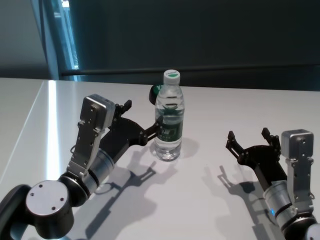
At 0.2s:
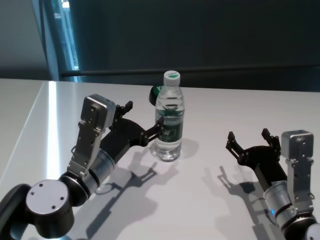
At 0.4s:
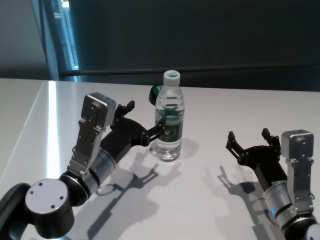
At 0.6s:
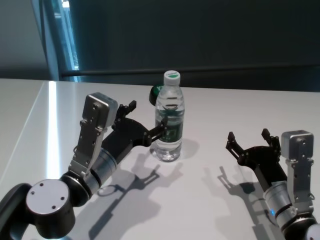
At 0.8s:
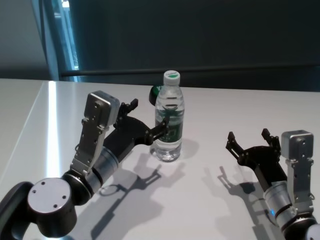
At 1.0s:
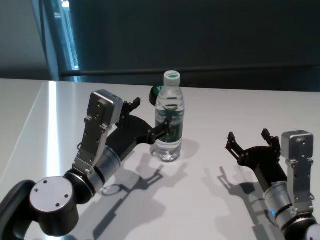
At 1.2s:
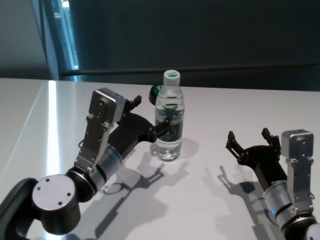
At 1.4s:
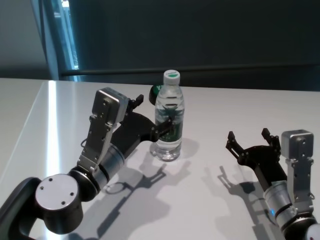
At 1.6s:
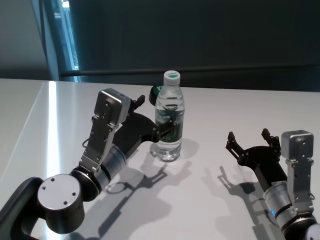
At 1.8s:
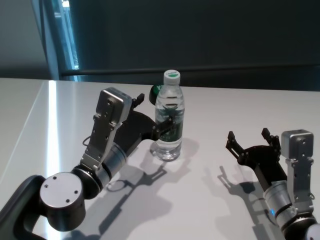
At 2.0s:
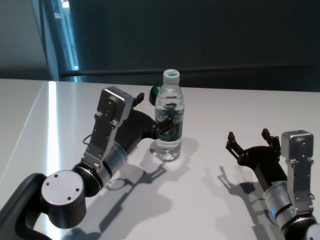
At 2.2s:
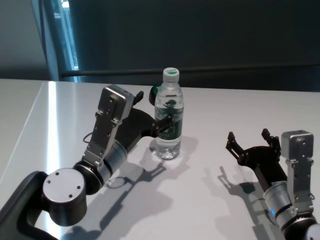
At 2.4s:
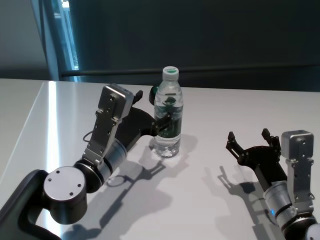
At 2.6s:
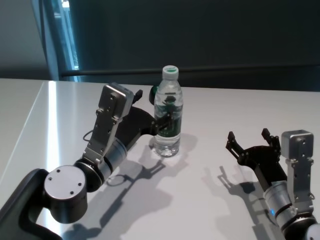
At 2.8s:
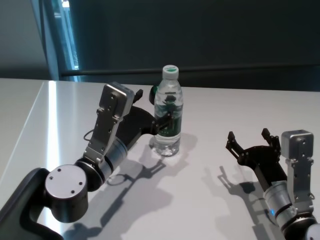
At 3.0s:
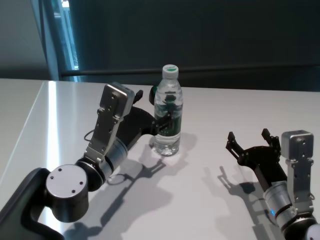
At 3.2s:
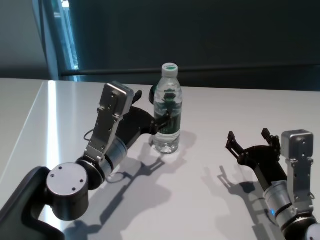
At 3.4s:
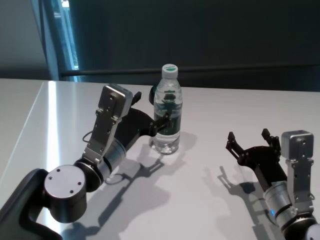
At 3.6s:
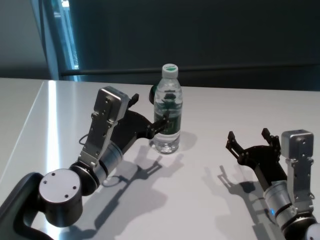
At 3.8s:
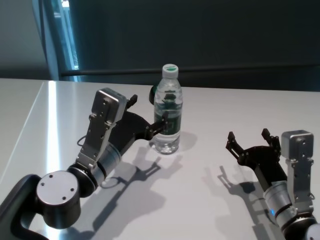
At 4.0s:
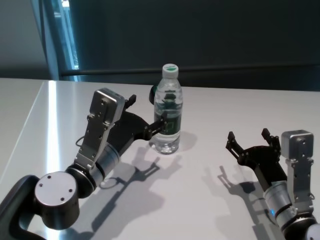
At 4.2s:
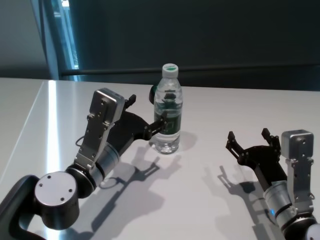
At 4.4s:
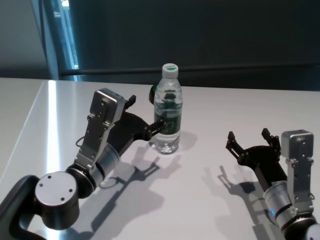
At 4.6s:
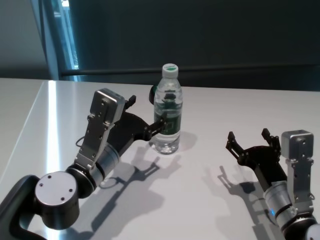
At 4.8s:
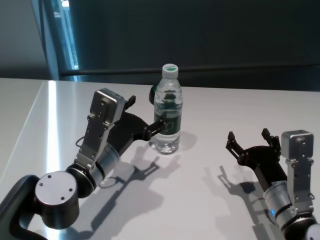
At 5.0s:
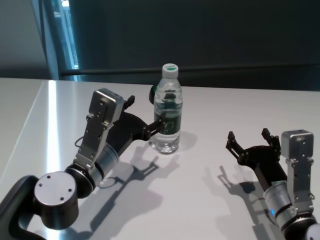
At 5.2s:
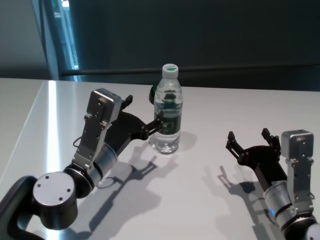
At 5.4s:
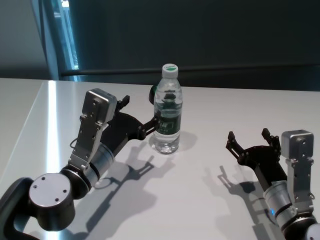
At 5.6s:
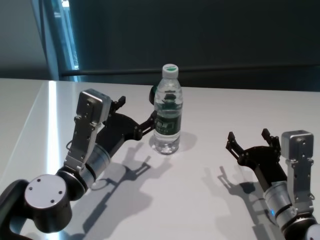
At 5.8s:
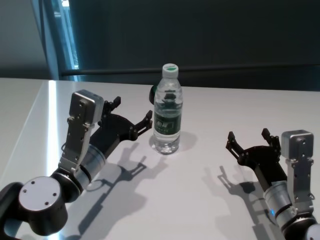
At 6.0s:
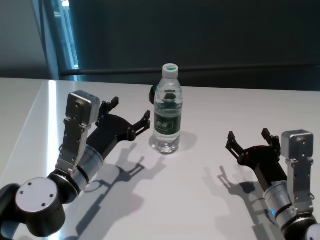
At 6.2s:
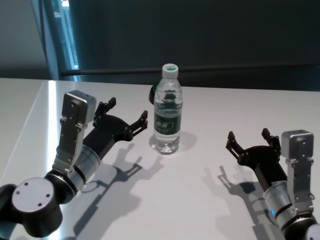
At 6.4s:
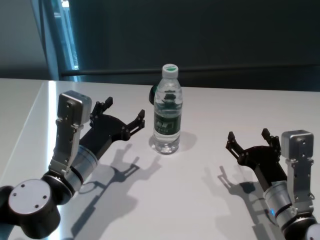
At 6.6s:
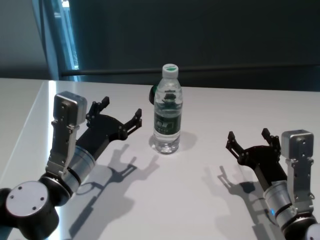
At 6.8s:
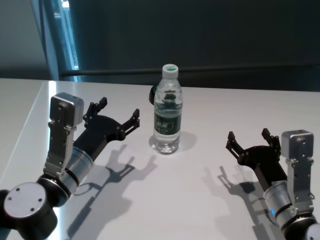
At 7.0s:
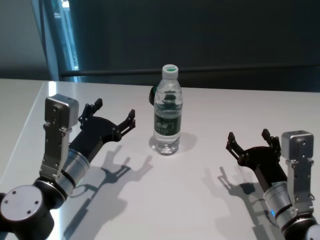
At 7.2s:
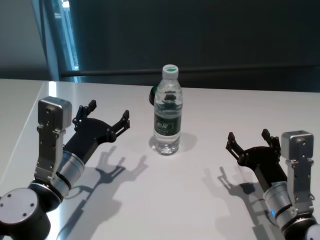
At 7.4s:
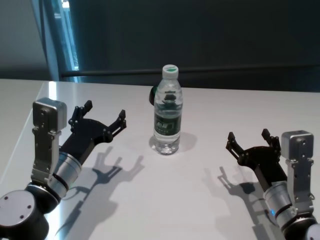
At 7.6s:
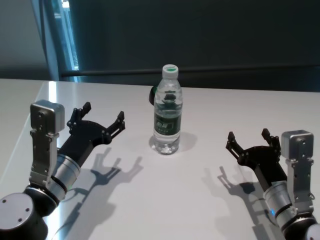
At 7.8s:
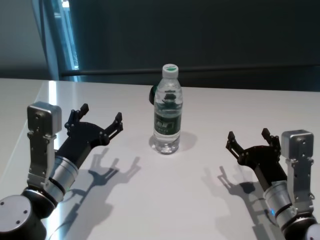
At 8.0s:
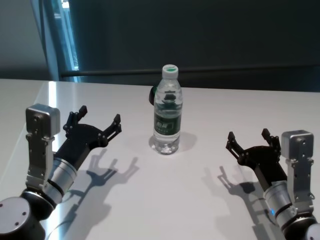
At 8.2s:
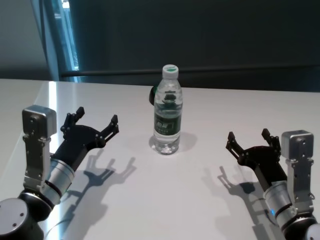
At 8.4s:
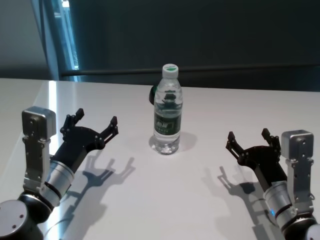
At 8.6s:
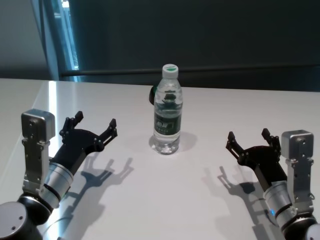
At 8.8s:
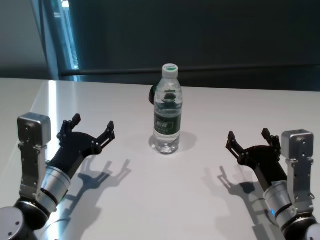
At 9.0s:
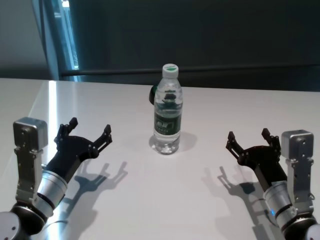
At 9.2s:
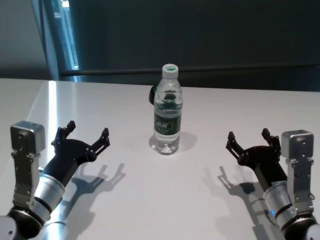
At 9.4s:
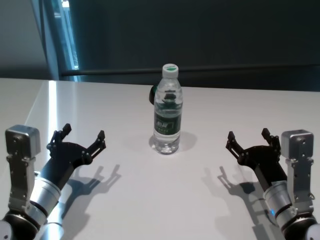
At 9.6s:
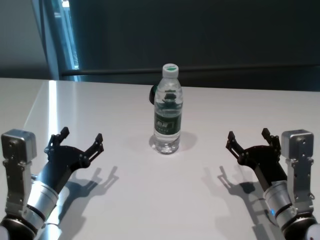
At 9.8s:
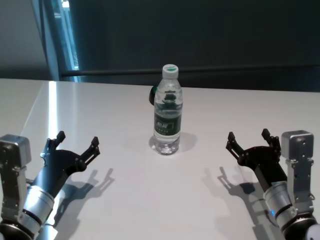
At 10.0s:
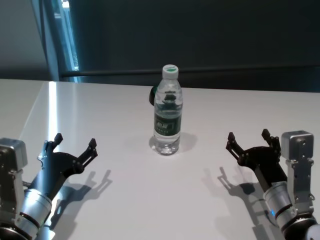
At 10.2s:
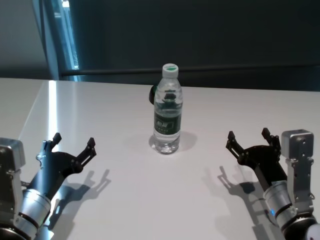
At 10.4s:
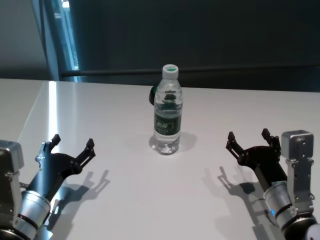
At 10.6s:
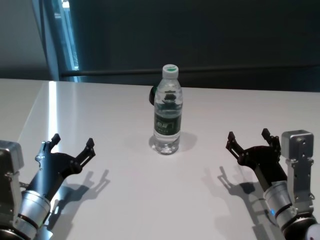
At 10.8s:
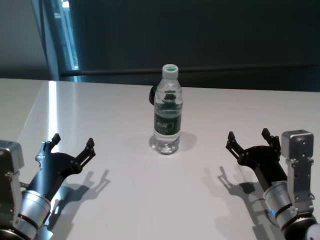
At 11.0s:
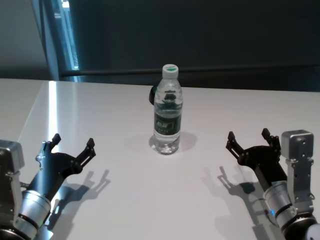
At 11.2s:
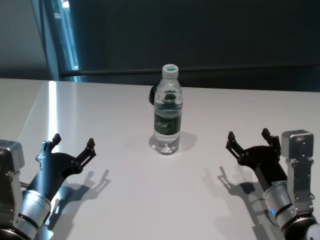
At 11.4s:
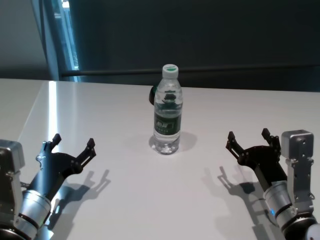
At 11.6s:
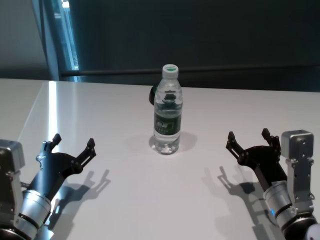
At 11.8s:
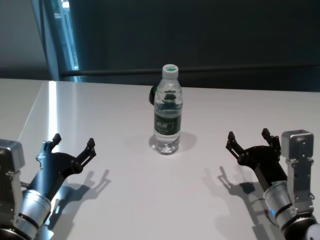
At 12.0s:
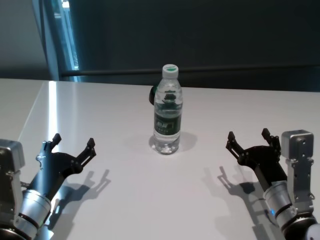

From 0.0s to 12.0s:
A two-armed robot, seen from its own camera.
Task of the whole recording: return to a safe position after touching an obstacle with your arm on the white table.
Step, from 0.0s to 6.0s: Touch the bottle with left gripper.

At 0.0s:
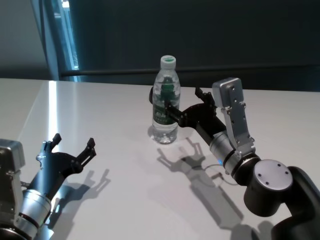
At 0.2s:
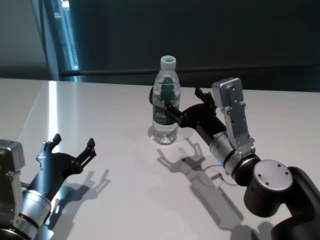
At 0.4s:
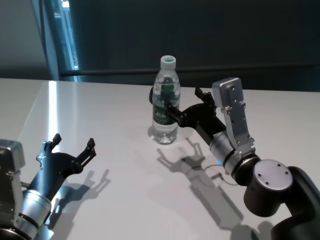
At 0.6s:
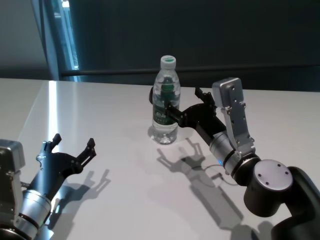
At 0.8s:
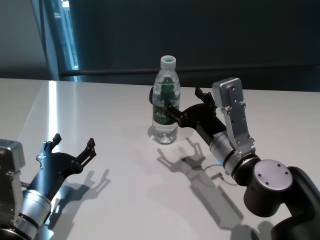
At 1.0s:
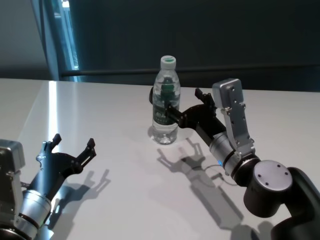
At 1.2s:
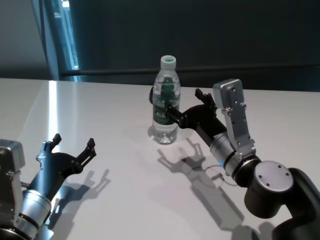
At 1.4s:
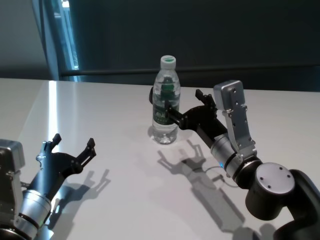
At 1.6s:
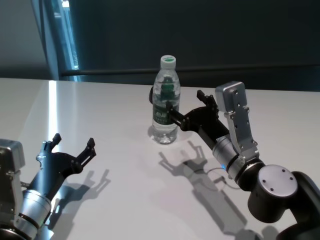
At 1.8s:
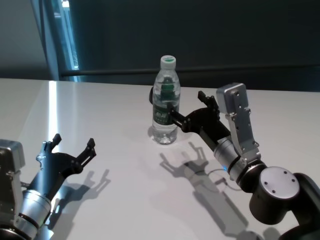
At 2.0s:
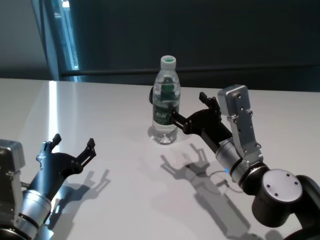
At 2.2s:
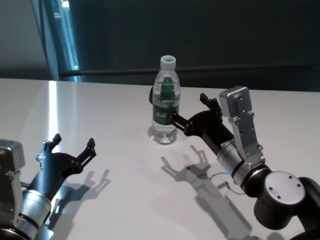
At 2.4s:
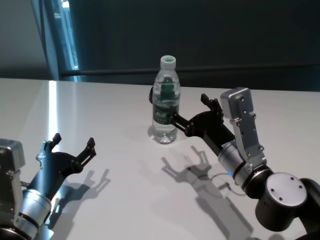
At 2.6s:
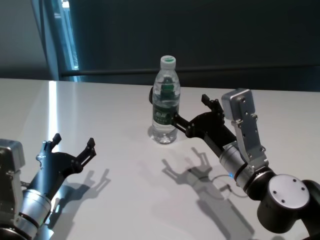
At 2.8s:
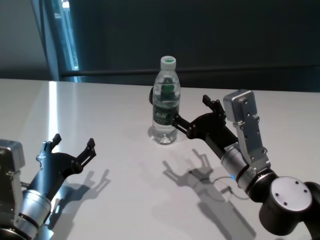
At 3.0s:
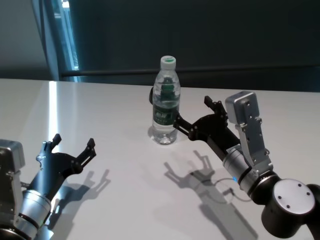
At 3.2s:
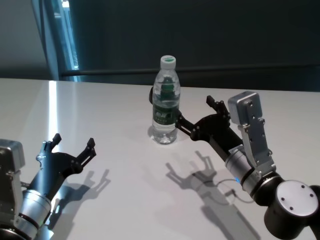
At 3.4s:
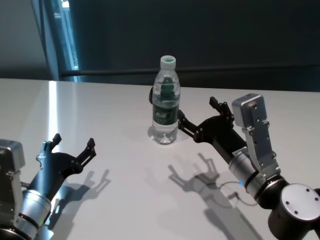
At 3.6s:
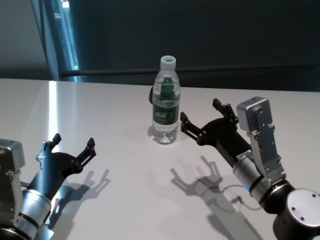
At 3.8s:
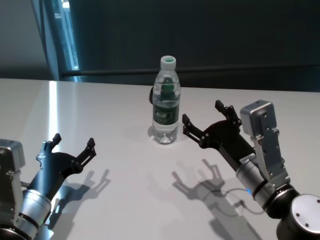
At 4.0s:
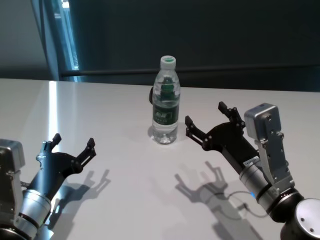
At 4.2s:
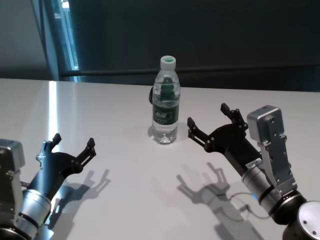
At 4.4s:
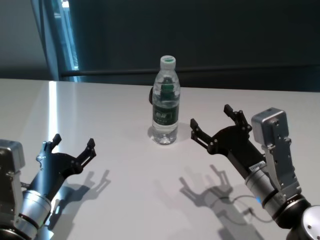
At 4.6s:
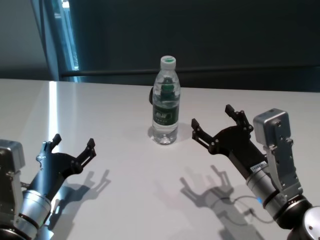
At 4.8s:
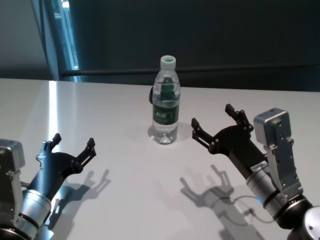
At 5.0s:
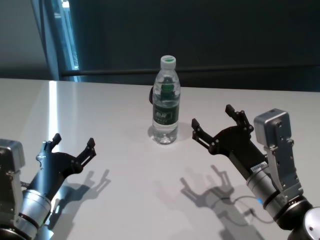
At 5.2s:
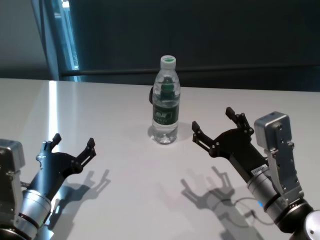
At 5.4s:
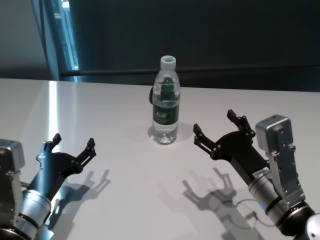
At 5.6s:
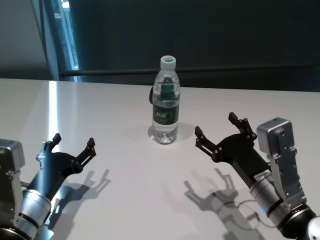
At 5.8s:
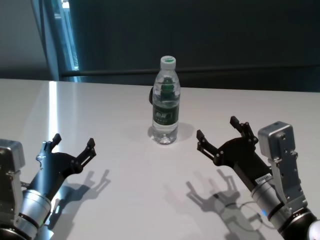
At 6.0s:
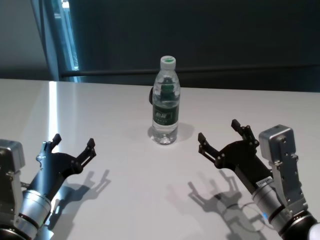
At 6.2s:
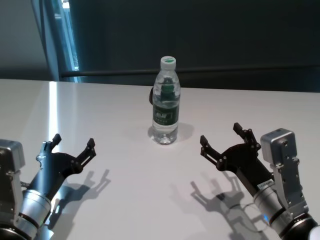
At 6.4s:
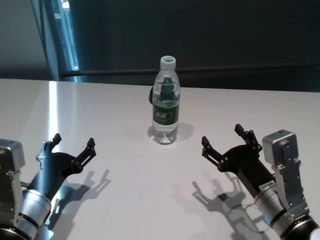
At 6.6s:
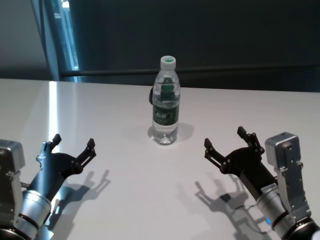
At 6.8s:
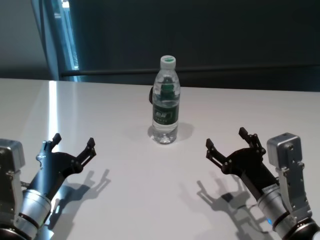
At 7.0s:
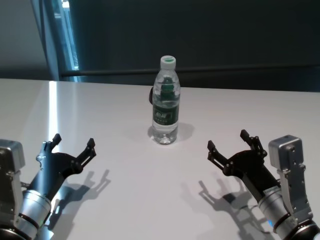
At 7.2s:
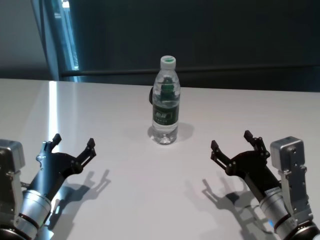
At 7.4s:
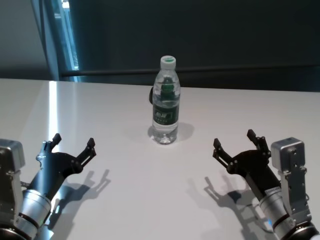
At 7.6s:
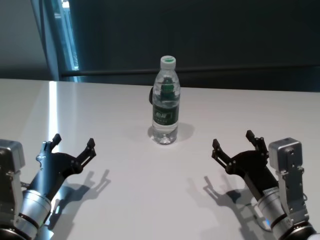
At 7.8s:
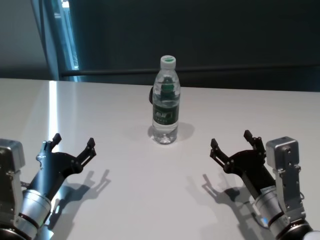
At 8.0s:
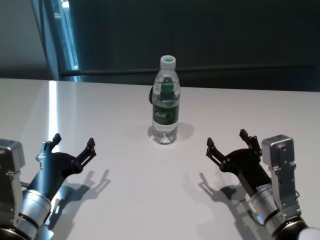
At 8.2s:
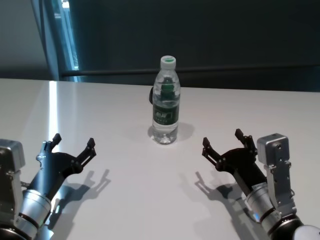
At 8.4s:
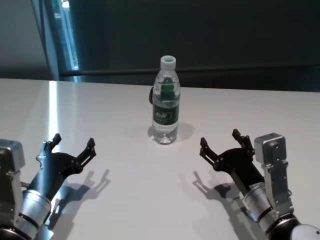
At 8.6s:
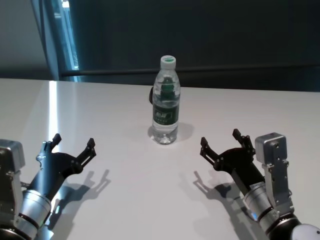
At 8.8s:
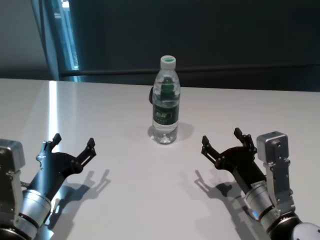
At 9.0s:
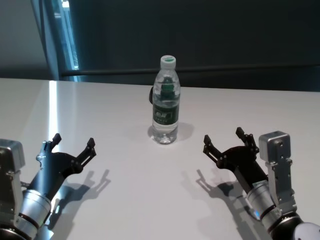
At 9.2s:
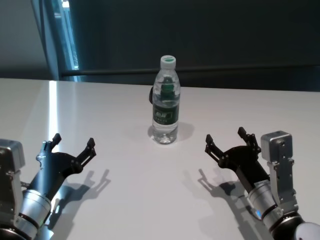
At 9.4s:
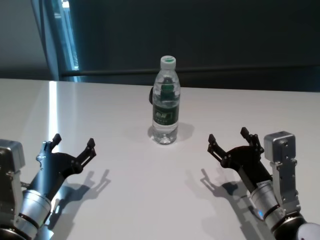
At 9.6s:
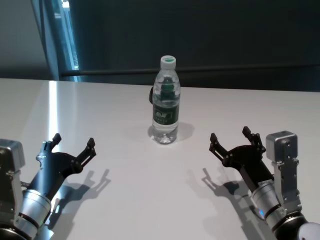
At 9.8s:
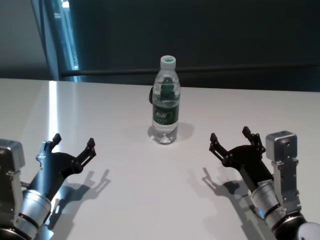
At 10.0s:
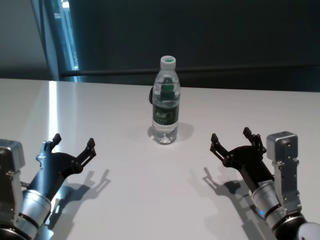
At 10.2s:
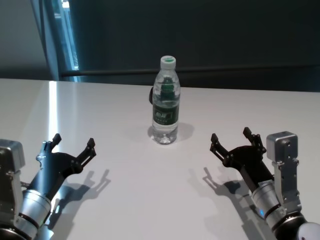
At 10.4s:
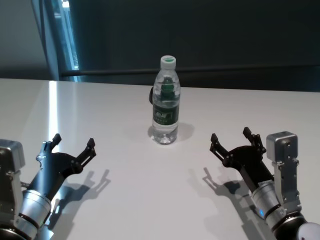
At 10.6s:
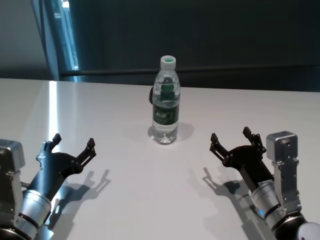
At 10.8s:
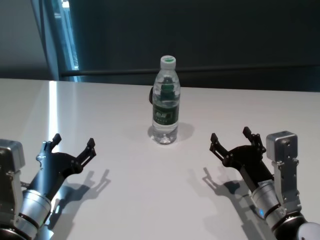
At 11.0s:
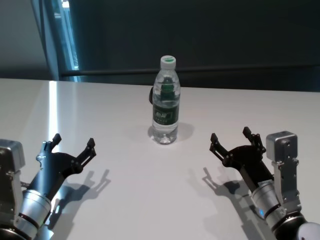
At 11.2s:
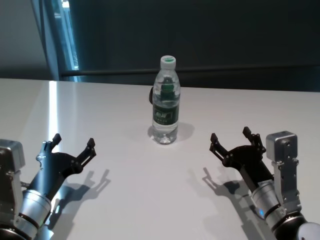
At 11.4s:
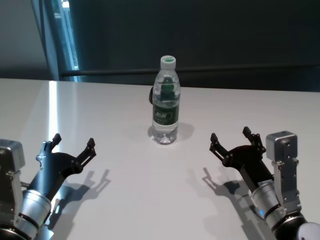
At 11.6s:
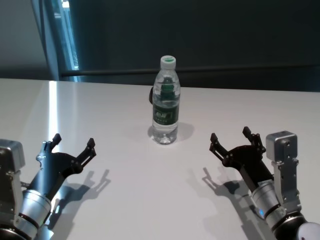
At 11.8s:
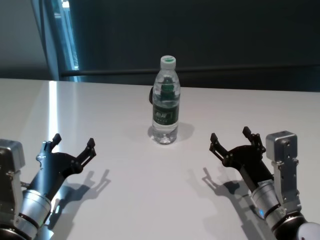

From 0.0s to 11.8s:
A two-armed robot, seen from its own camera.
Task of the whole recording: return to a safe position after touching an obstacle with your arm on the white table.
Step, from 0.0s to 3.6s: Touch the bottle with right gripper.
